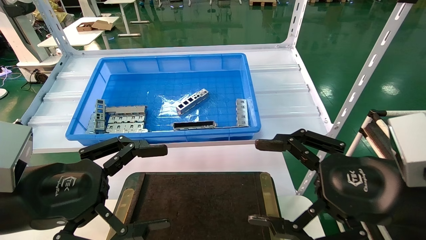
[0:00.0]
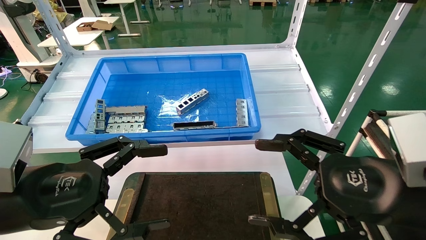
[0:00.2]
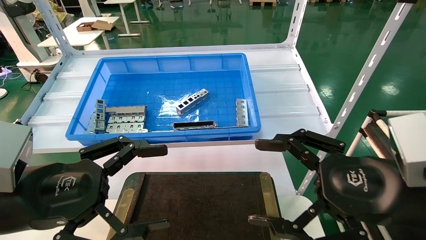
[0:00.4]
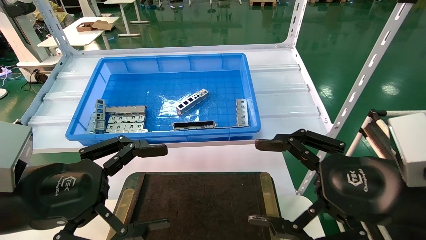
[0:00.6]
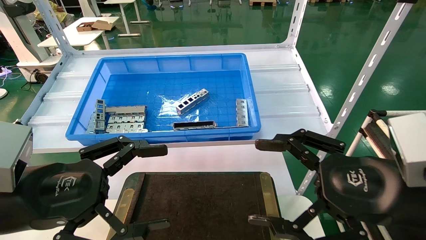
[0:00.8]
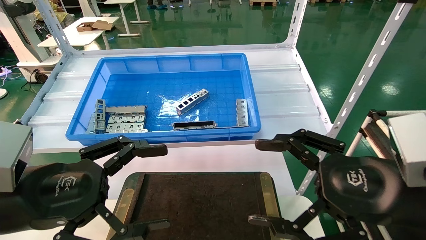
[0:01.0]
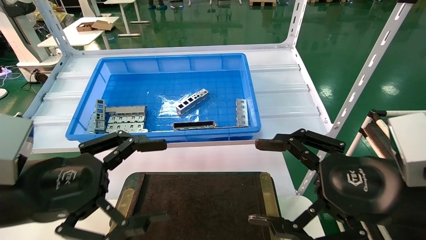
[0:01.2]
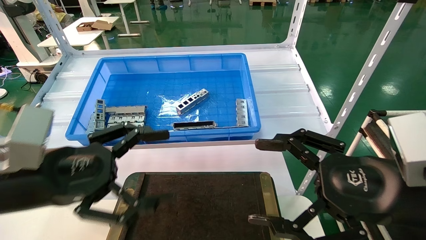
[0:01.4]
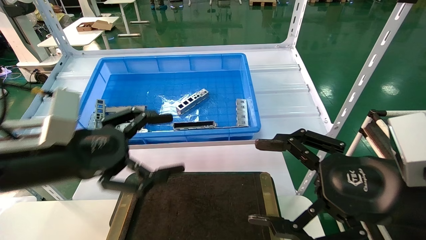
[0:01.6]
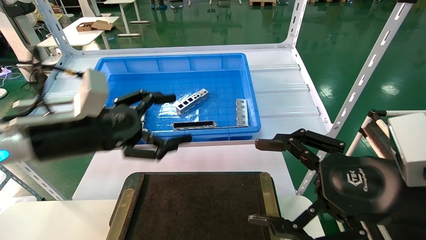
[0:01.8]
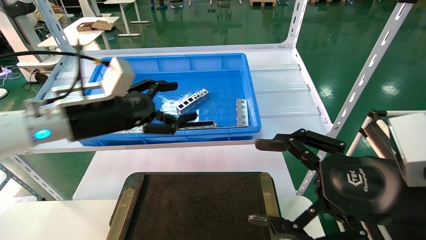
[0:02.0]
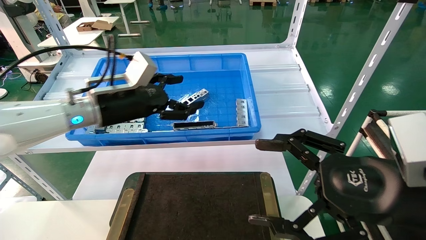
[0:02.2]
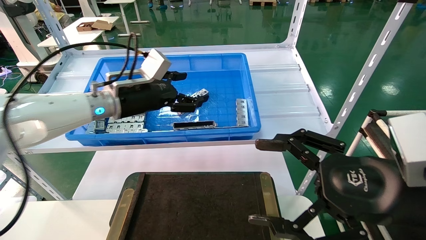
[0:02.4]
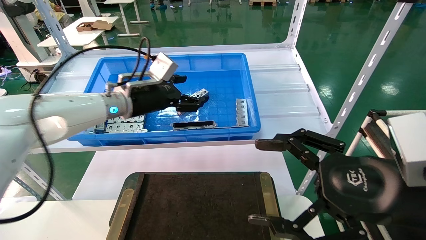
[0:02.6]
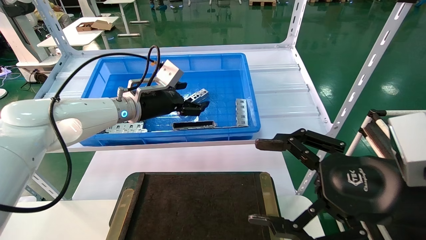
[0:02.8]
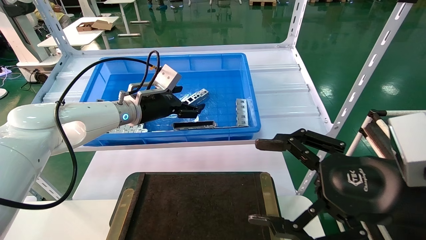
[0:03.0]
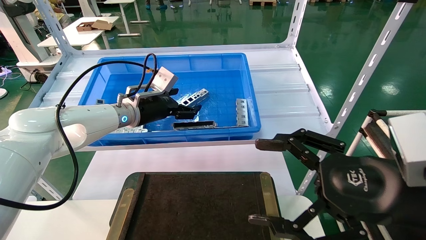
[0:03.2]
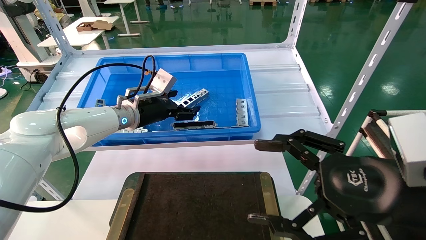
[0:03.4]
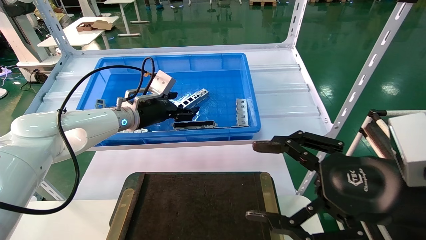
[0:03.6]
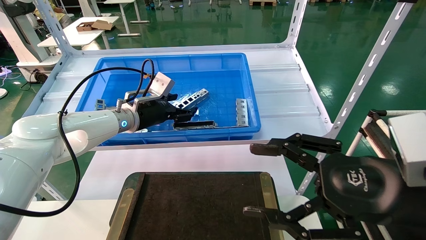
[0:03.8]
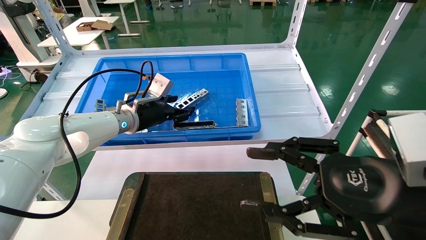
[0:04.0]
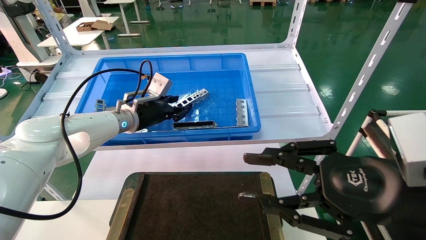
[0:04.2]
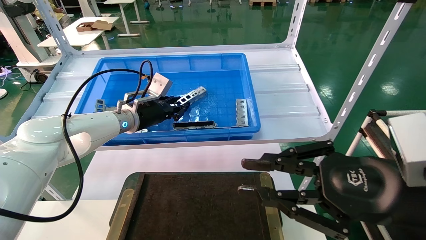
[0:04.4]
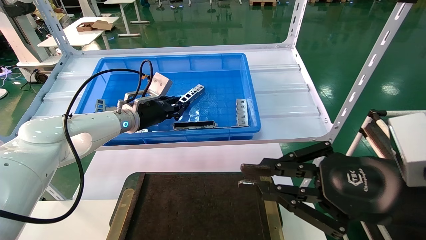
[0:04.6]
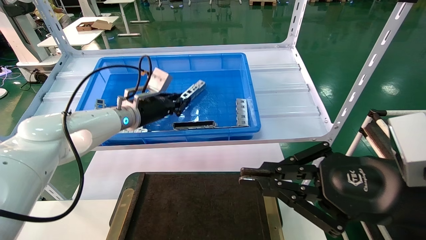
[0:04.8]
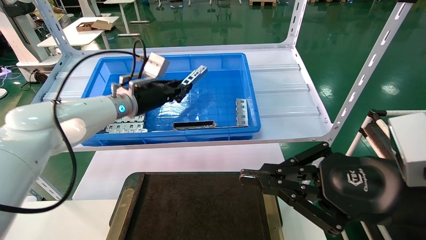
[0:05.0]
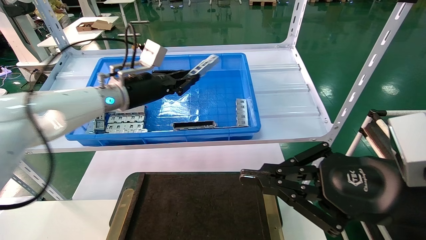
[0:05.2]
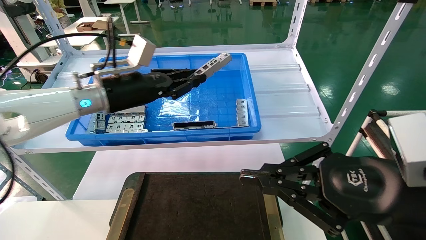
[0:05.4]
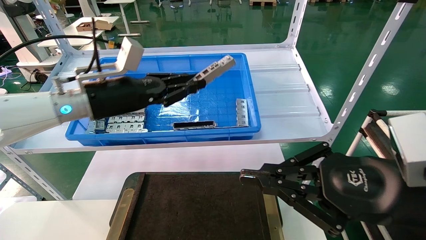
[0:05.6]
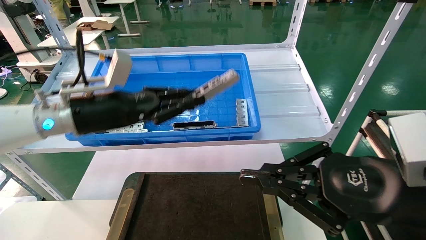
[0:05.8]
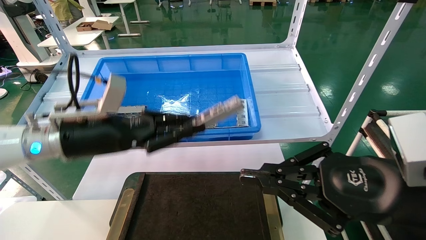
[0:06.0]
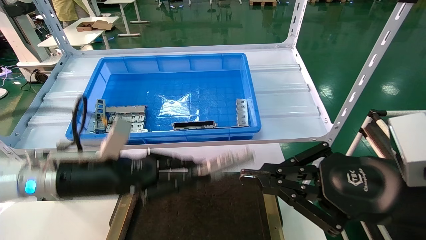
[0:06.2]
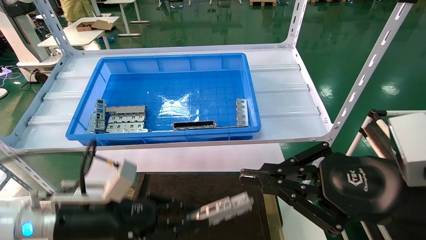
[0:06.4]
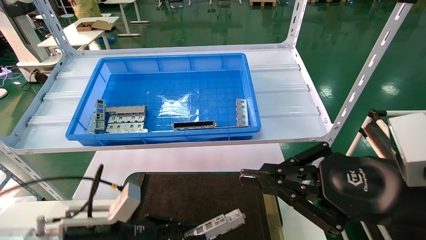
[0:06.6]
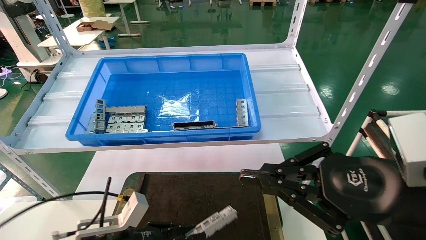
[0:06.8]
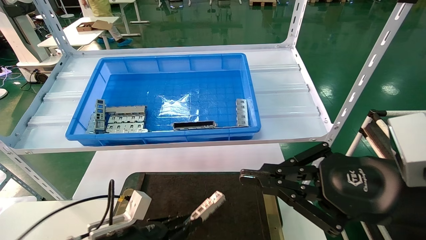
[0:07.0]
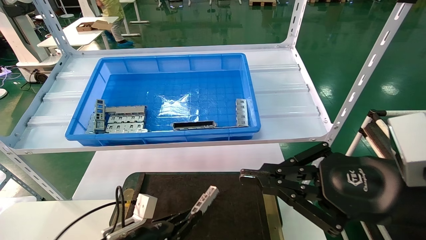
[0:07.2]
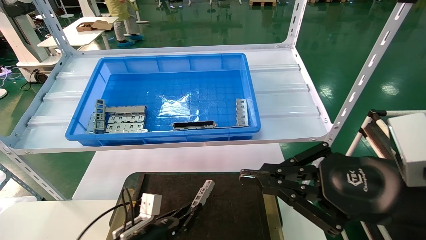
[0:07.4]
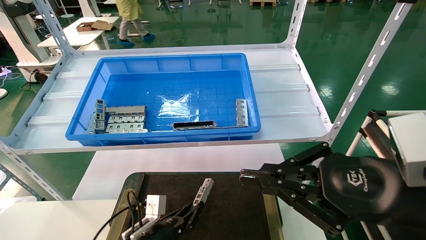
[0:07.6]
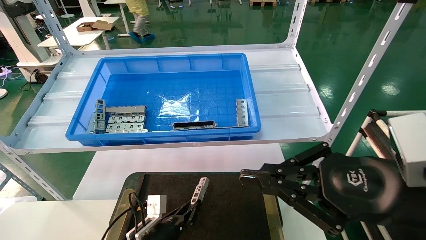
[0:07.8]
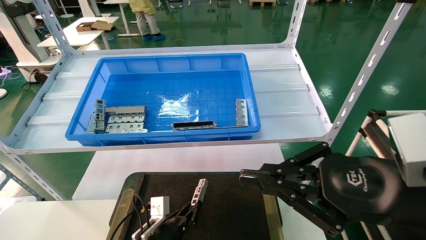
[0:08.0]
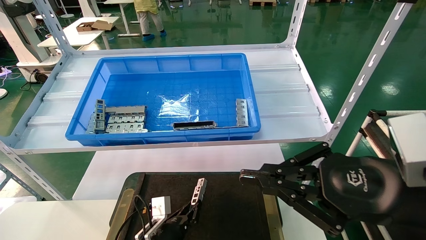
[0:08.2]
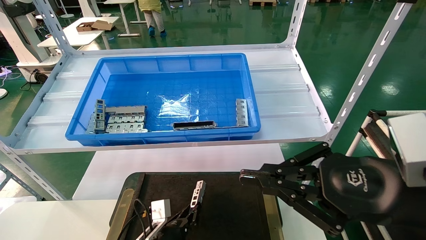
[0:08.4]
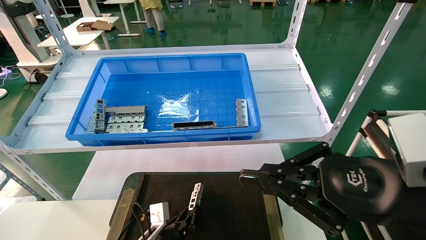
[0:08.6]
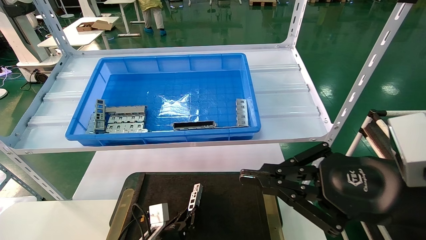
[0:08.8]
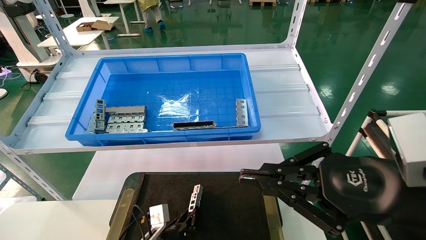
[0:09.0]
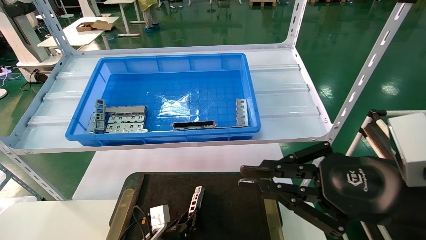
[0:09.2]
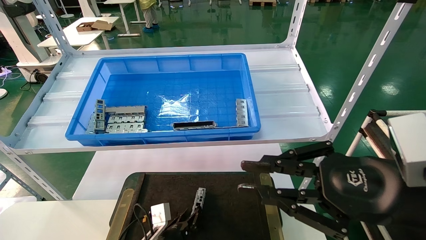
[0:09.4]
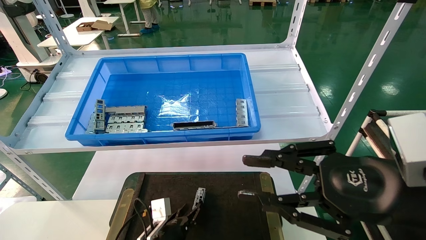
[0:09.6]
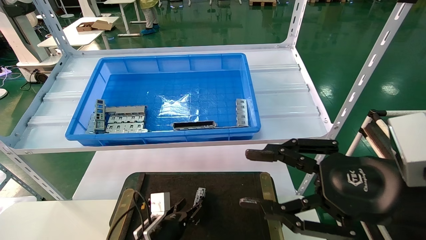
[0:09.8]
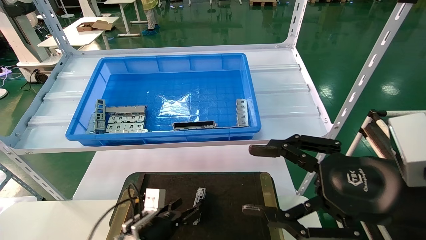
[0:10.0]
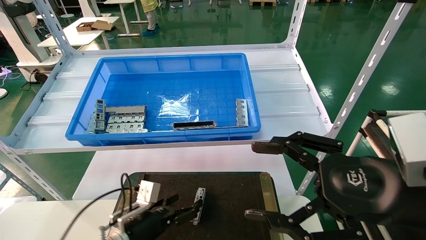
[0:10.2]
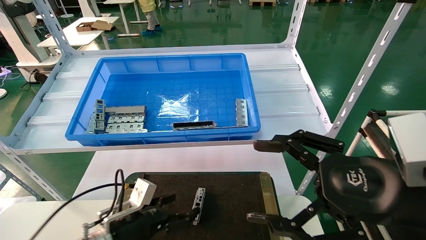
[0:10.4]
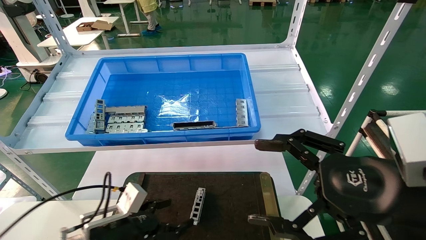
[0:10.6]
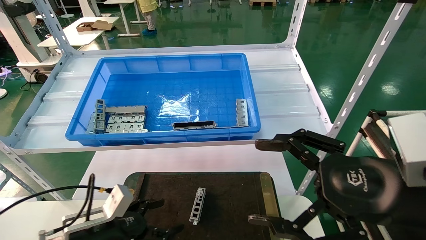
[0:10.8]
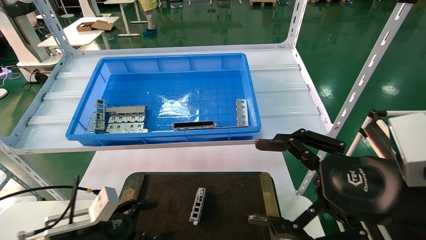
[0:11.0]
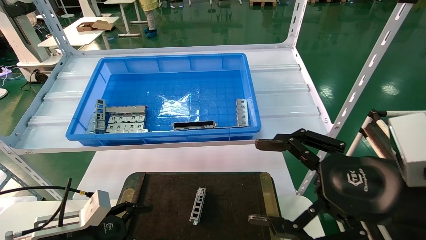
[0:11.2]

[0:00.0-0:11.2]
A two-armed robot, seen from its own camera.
Task of the whole recording: Grasp the part with one hand and place it on the black container.
Step, 0:01.4 to 0:04.4: Pick up the front USB bracket from the feeding area.
Step, 0:04.6 to 0:09.2: Place the front USB bracket into the box.
0:00.0 to 0:01.6: The left gripper heads forward, covering roughly 5 cm.
0:01.6 to 0:03.2: The left gripper travels forward by roughly 25 cm.
0:03.2 to 0:04.8: The left gripper closes; the right gripper closes.
0:04.8 to 0:06.4: The left gripper moves backward and downward, about 25 cm.
0:06.4 to 0:08.0: The left gripper heads downward and to the right, covering roughly 20 cm.
0:08.0 to 0:09.6: The grippers stay close to where they were, moving slightly.
0:09.6 to 0:11.2: The left gripper heads to the left, upward and backward, covering roughly 20 cm, and opens, while the right gripper opens.
